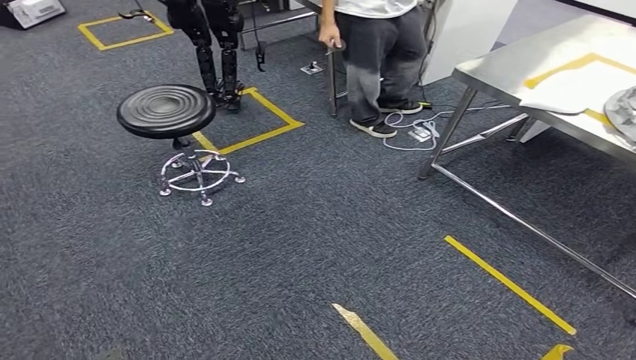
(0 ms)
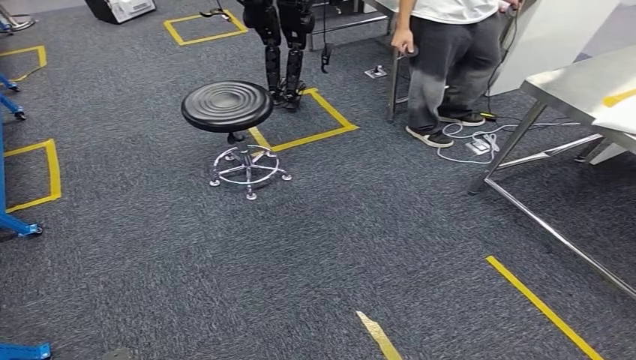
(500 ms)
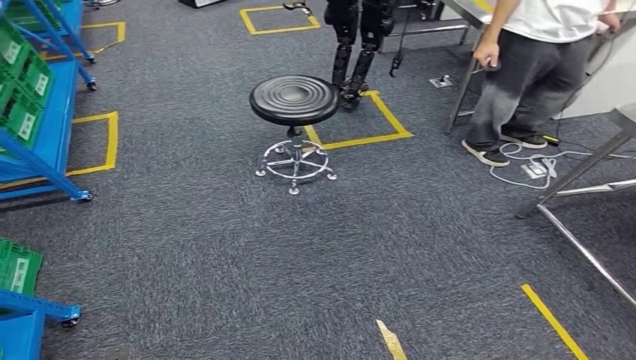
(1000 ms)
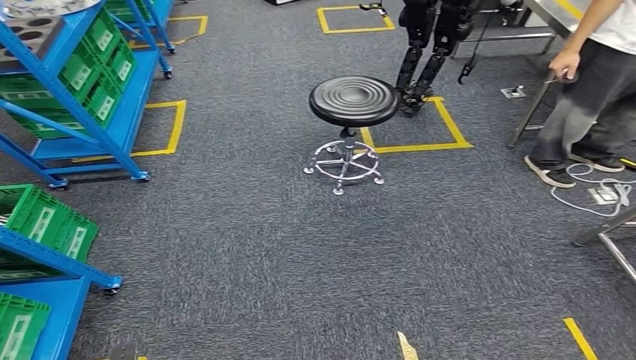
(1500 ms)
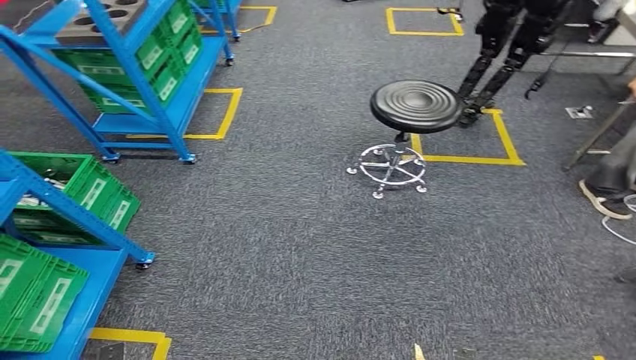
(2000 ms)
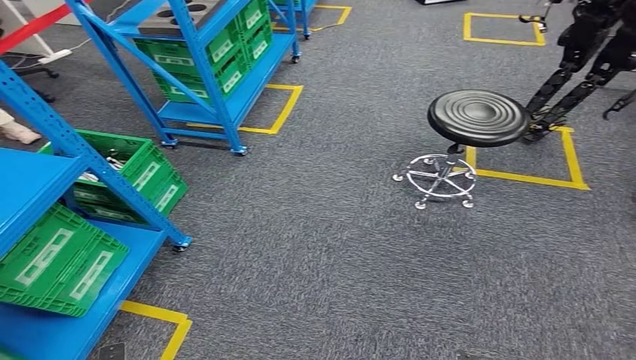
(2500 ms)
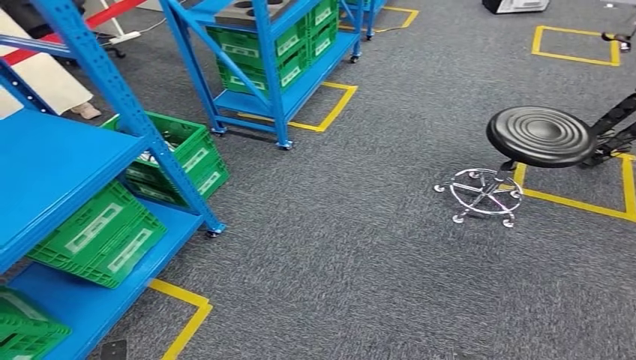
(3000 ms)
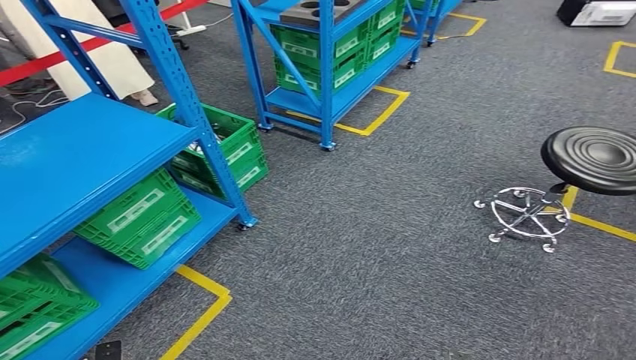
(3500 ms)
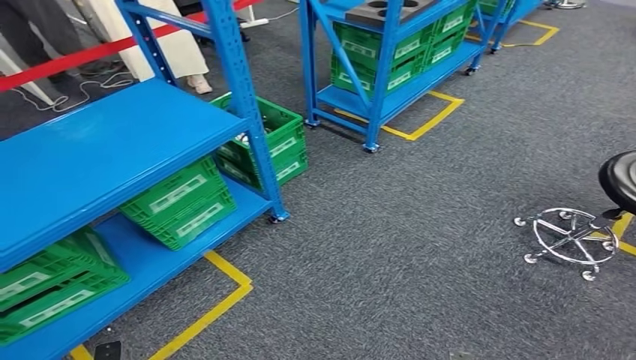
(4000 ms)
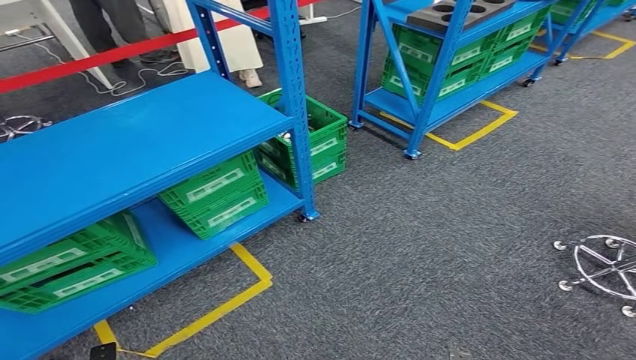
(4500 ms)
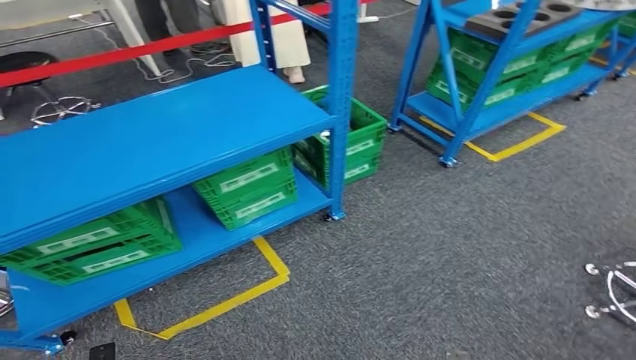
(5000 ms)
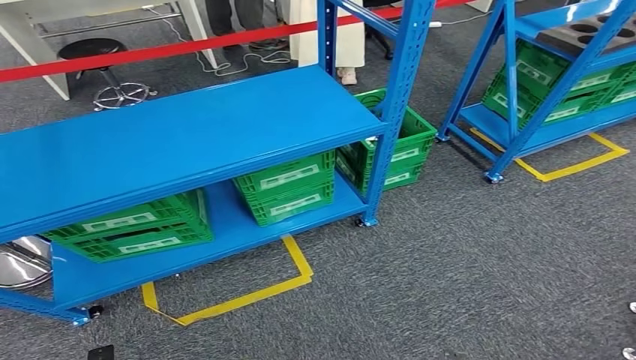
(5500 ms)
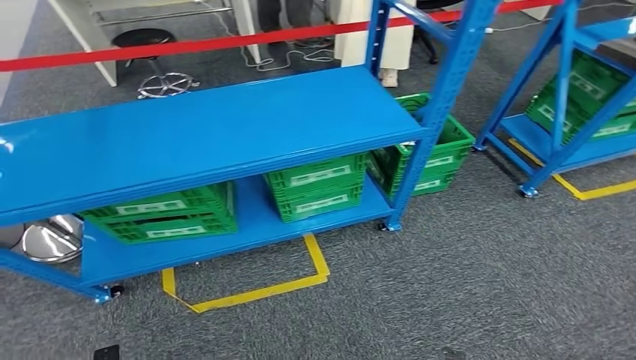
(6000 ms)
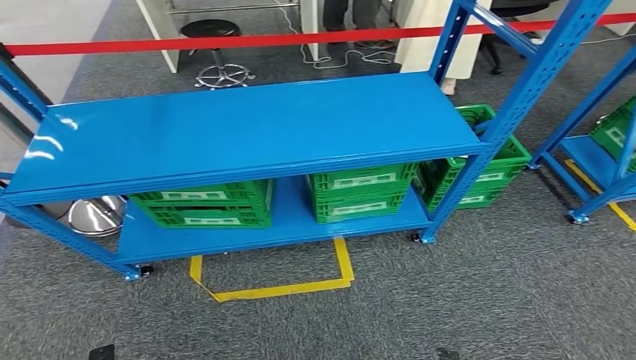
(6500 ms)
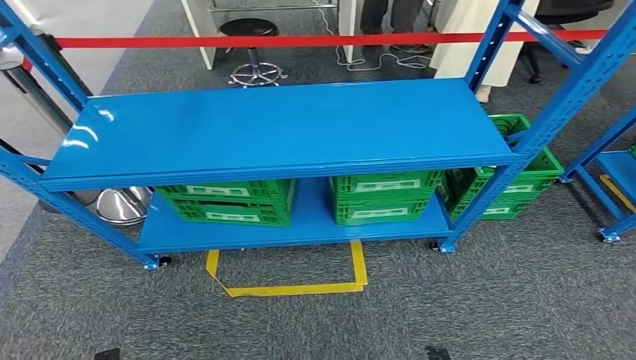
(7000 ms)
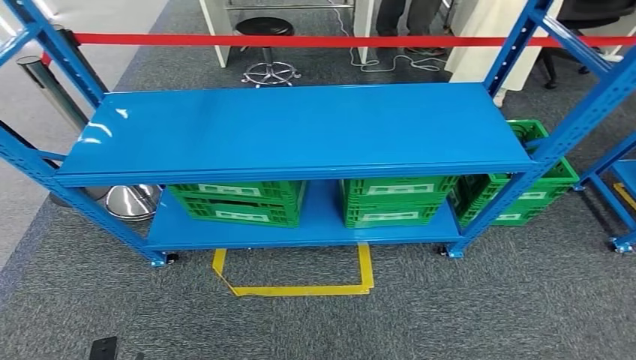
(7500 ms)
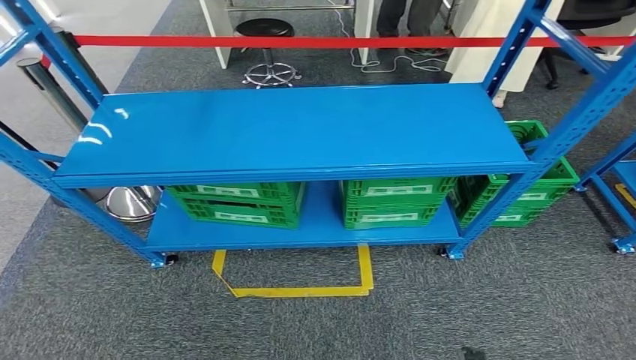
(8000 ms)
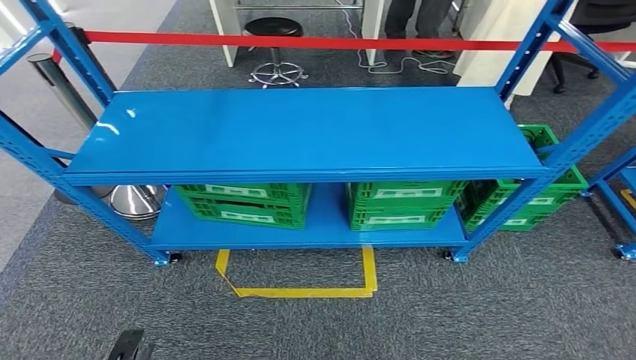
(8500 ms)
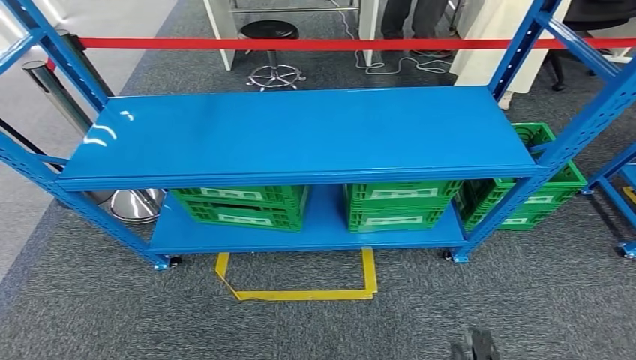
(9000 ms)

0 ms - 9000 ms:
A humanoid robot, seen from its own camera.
Step, 0 ms - 9000 ms: Return to the initial position at the workbench.
